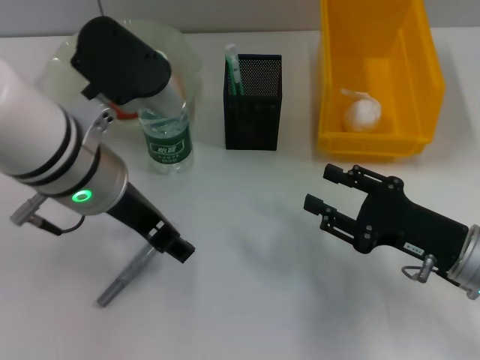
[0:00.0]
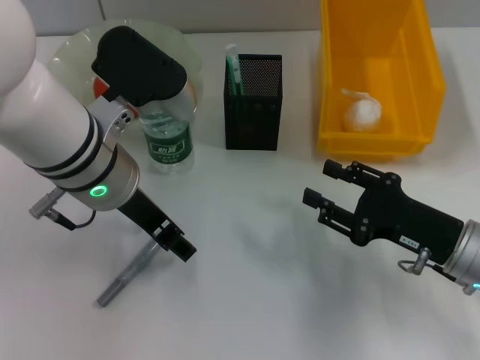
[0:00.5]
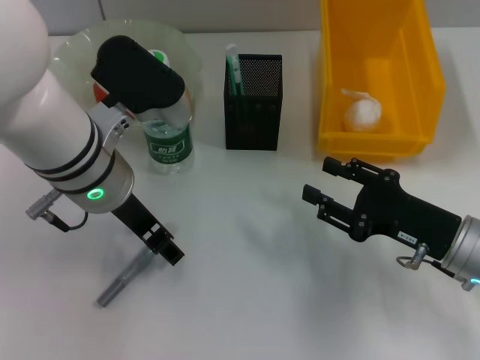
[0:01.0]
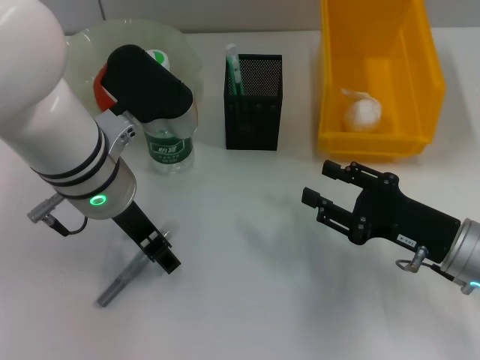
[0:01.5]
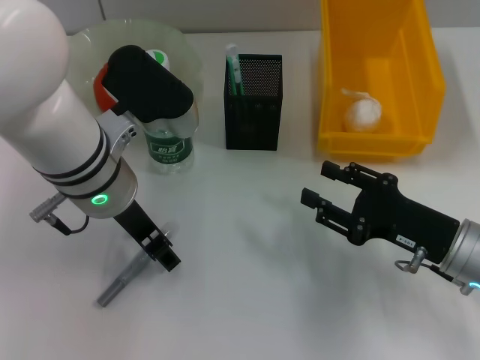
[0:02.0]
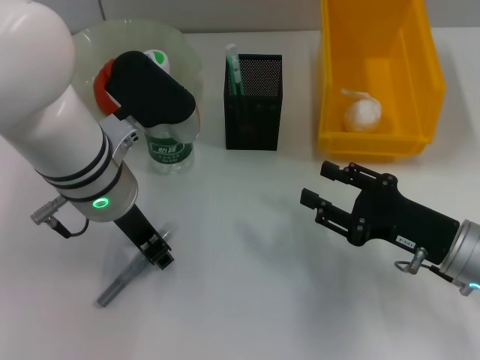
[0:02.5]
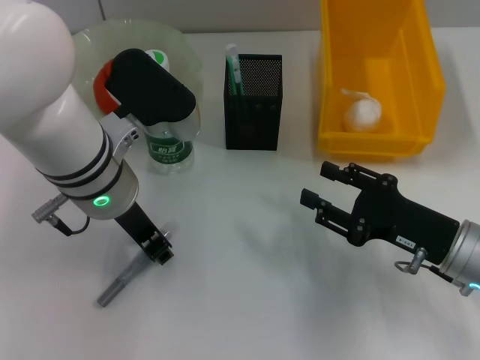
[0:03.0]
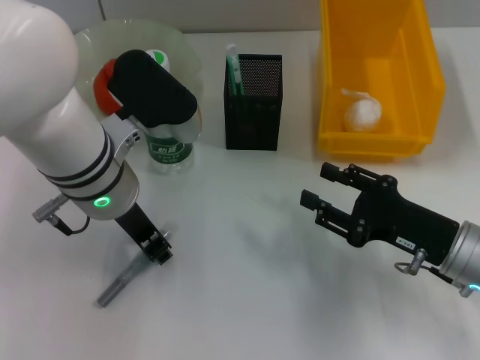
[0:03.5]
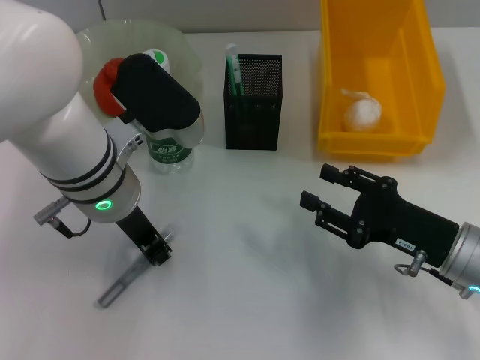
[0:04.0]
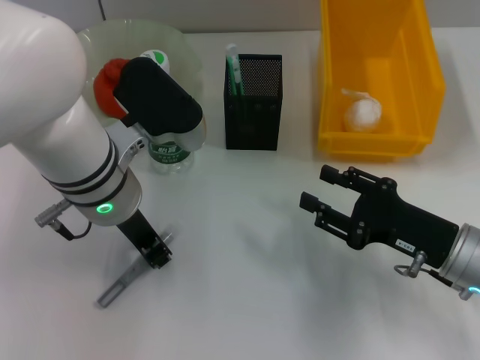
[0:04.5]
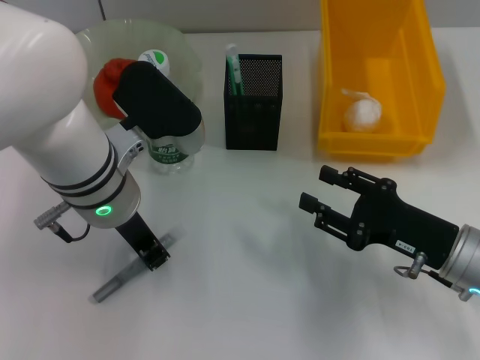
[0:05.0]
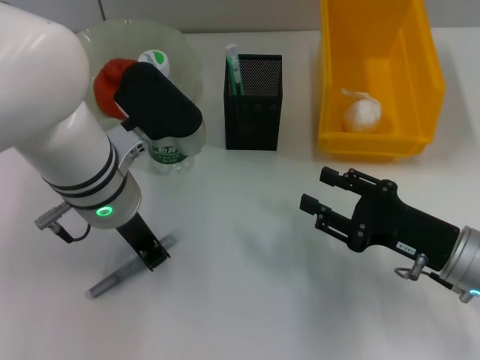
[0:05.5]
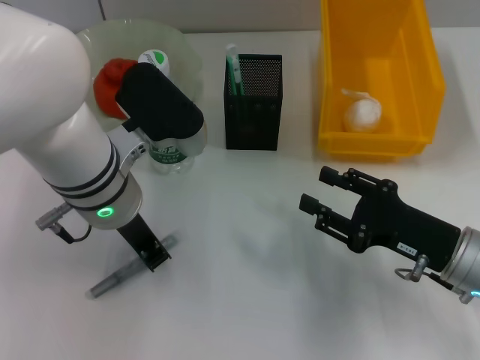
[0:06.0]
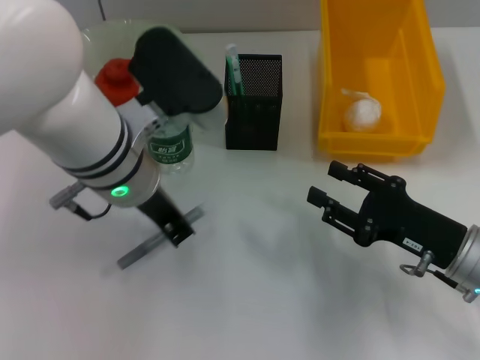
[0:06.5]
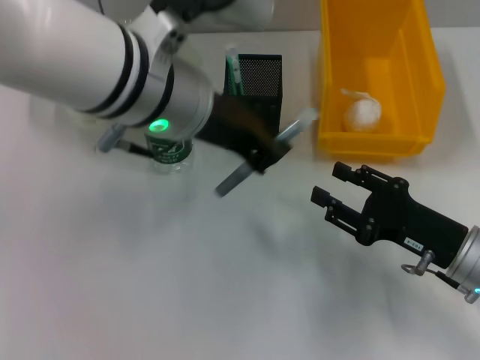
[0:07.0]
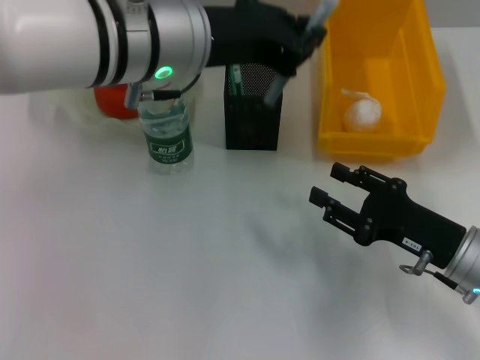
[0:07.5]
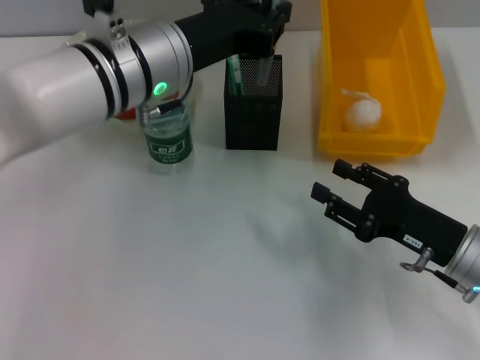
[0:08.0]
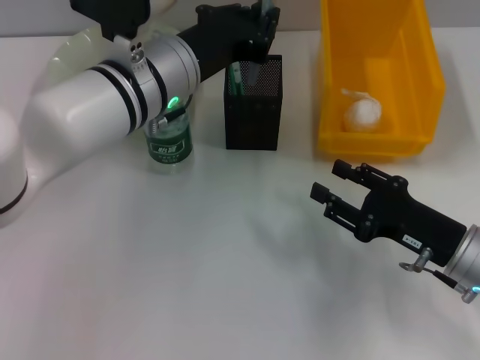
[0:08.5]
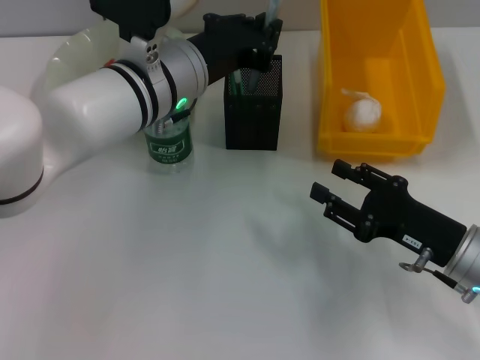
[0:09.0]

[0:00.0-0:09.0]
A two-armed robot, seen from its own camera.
Step, 0:00.0 to 0:05.5: Grab the gray glue with the left hand.
0:00.0 to 0:02.0: The grippers move only a little.
0:02.0 to 0:04.5: The left gripper closes.
0:04.5 to 0:07.0: The left gripper goes roughly 10 cm upward.
0:07.0 to 0:09.0: The left gripper travels downward and forward by approximately 10 cm.

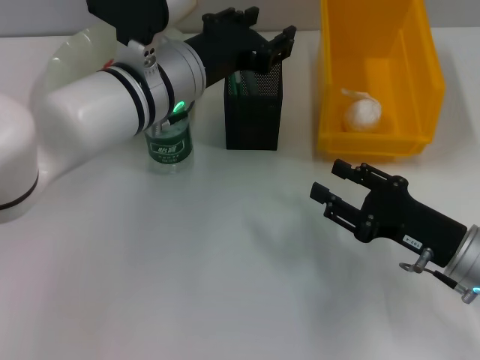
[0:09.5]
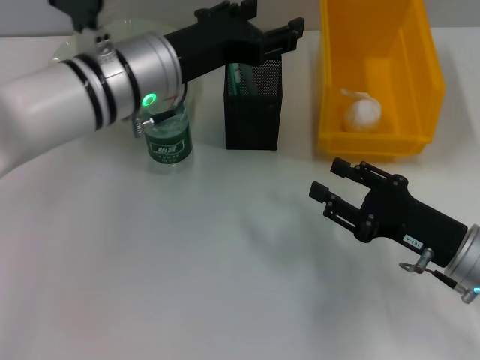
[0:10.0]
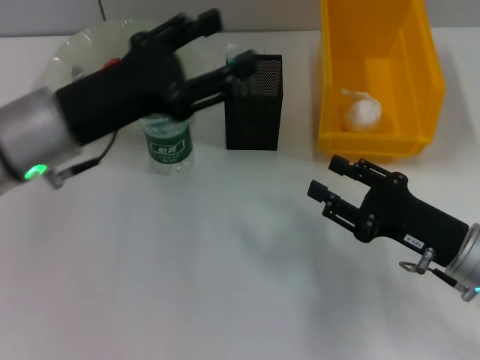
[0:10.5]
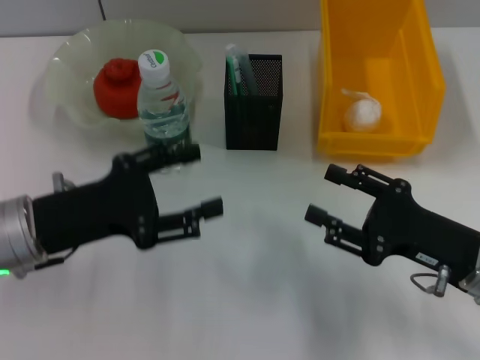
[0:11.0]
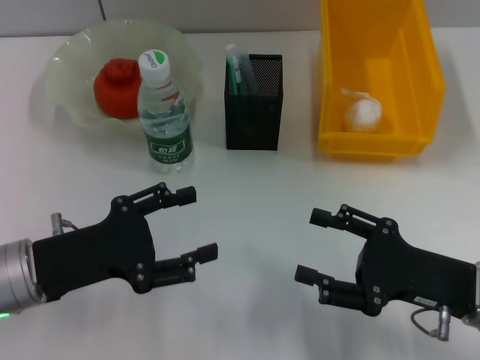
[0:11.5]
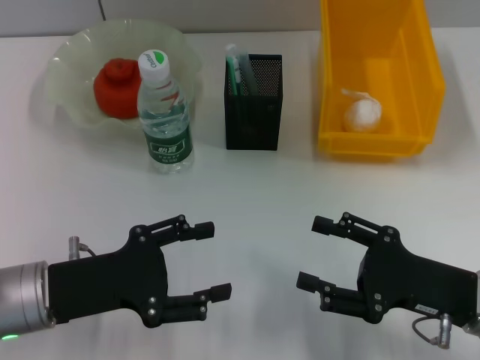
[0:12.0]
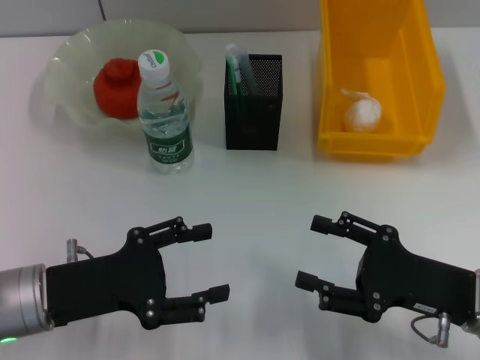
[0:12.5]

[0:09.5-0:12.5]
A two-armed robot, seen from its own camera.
0:09.5 to 0:11.0: The left gripper is displaced to the left, backward and downward by roughly 20 cm, and opens.

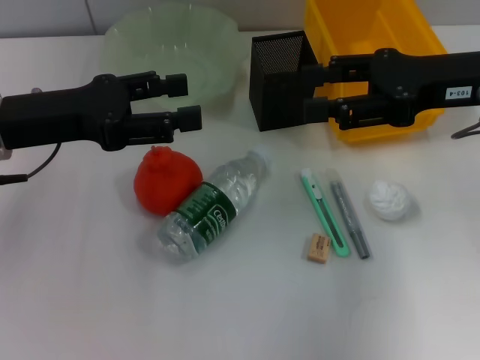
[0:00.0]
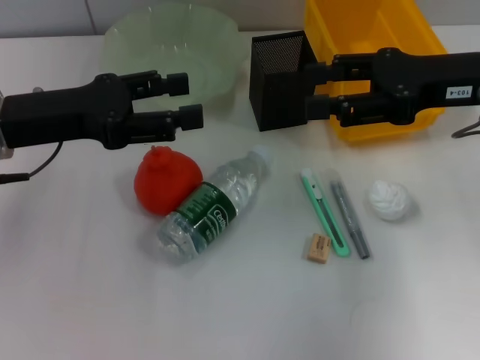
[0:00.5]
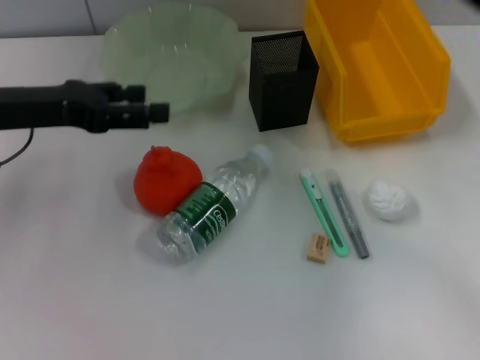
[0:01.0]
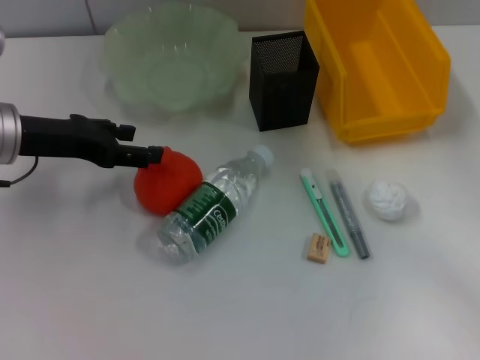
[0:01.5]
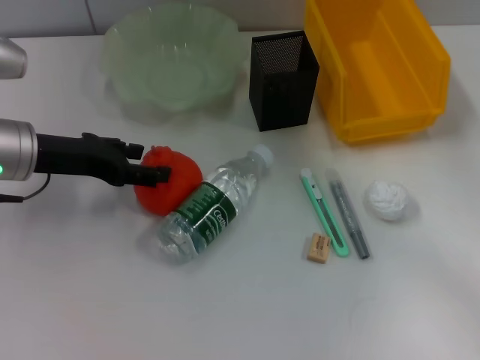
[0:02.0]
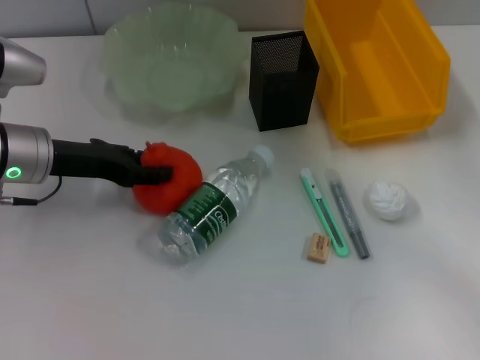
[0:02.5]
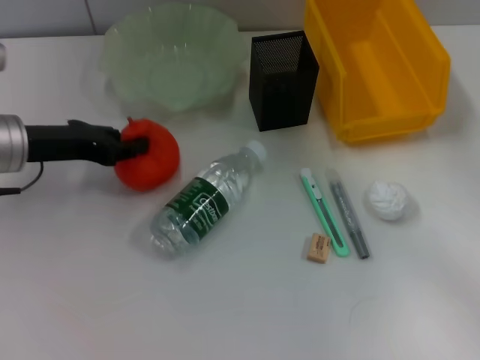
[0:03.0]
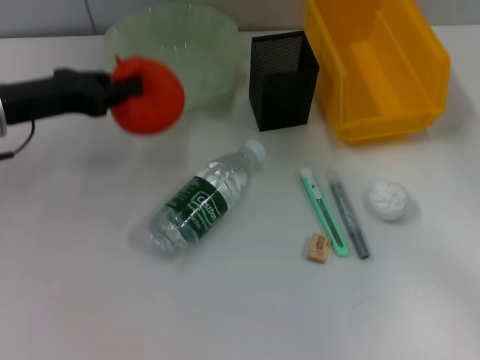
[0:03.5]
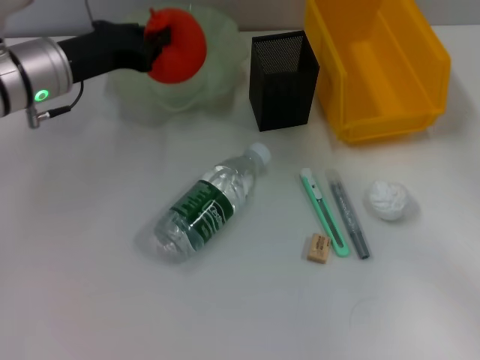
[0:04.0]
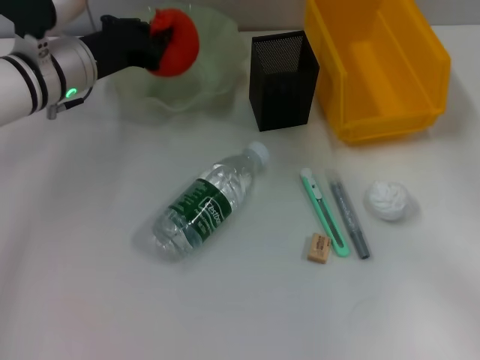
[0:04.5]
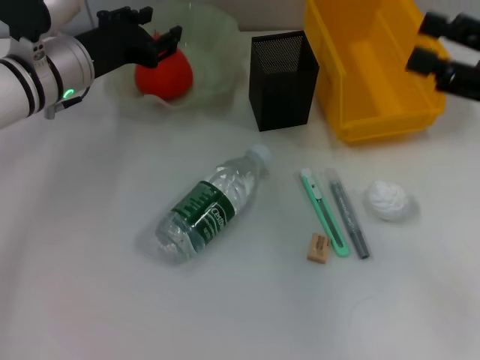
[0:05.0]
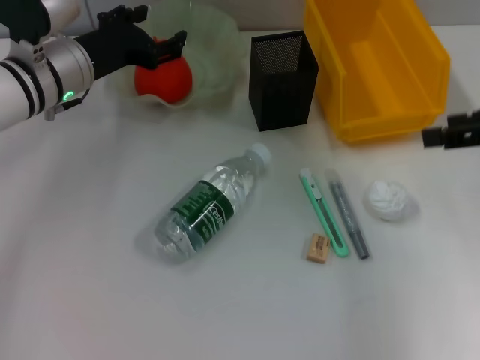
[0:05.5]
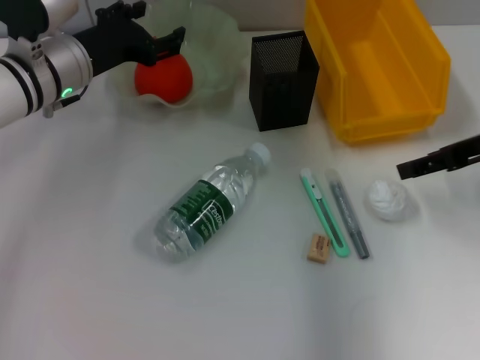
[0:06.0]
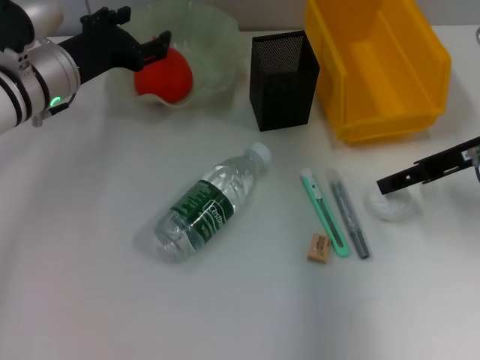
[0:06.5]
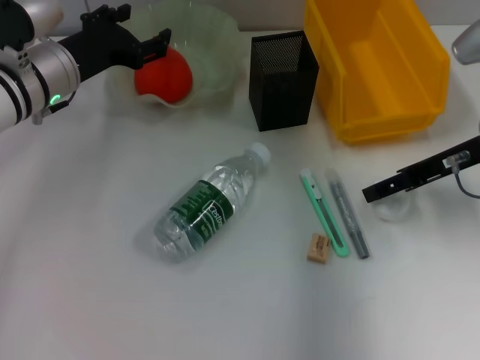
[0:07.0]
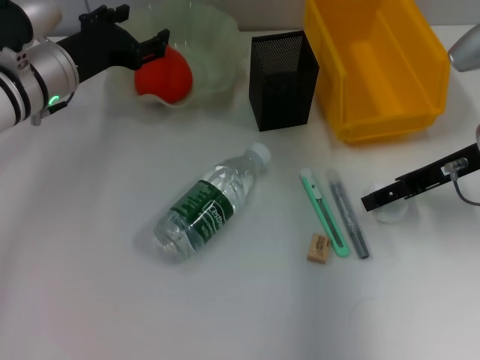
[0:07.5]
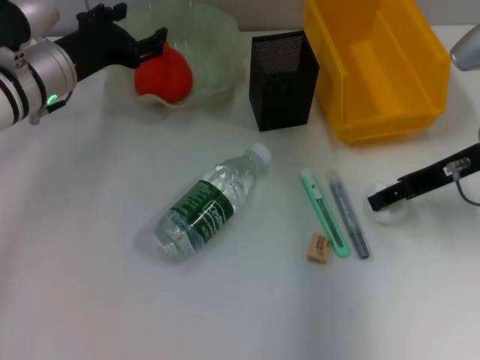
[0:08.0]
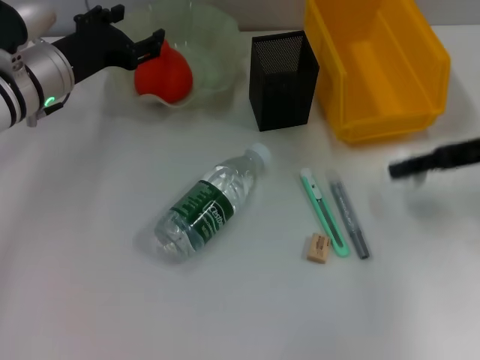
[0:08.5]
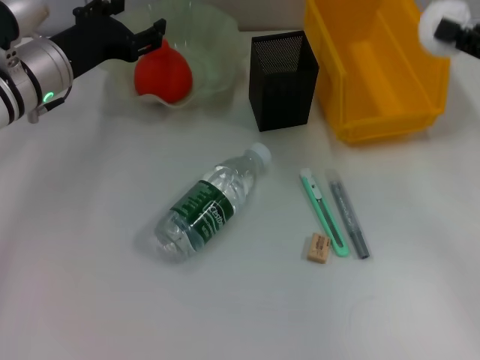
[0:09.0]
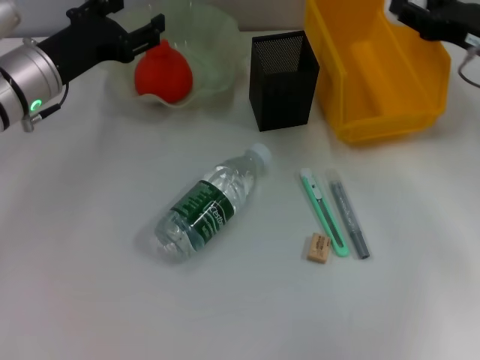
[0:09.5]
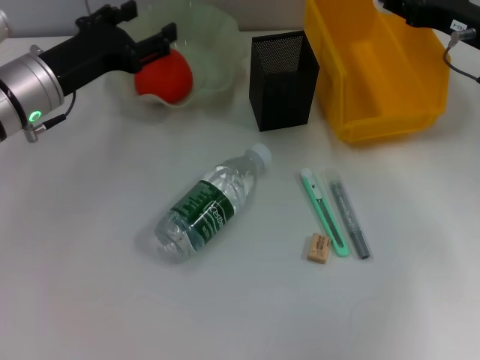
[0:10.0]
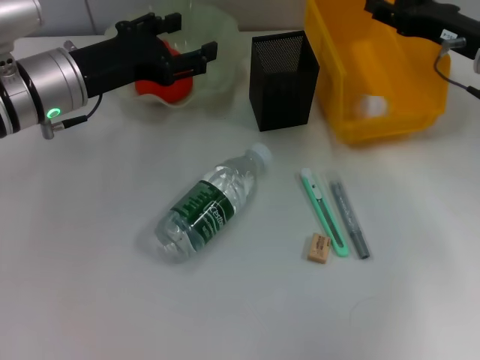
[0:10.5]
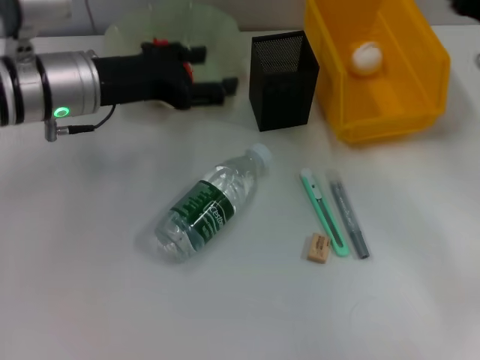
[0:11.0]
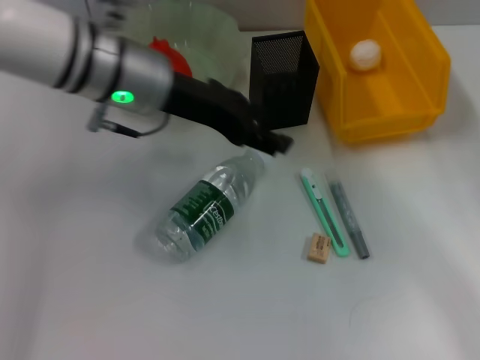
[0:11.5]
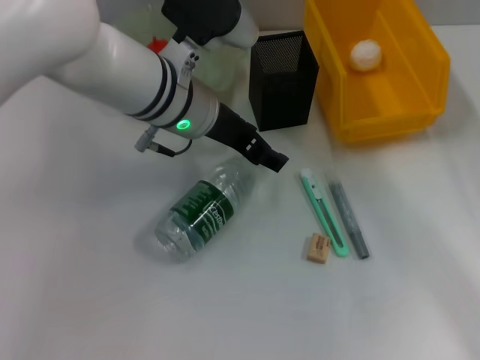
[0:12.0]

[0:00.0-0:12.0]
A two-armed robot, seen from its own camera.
Step, 0:00.0 to 0:02.5: Grab the orange with the left hand.
Step, 0:03.0 to 0:05.0: Place the orange into the fruit bowl with the left hand.
Step, 0:05.5 to 0:08.0: Grab the paper ball with the right hand.
Step, 0:08.5 to 0:10.0: Place the paper ball into the trash can with the right hand.
0:00.0 to 0:02.0: The right gripper heads to the right and downward, covering some 10 cm, while the left gripper shifts by roughly 5 cm.
0:02.0 to 0:04.0: The left gripper closes up.
0:04.0 to 0:06.0: The right gripper shifts by about 5 cm. Meanwhile the left gripper opens its fingers.
0:06.0 to 0:08.0: The right gripper moves about 5 cm.
0:08.0 to 0:10.0: The right gripper is displaced forward by approximately 5 cm.
0:10.0 to 0:12.0: The left gripper goes approximately 15 cm to the right, while the right gripper moves backward, approximately 15 cm.

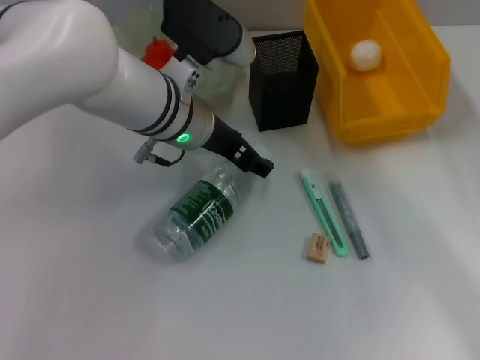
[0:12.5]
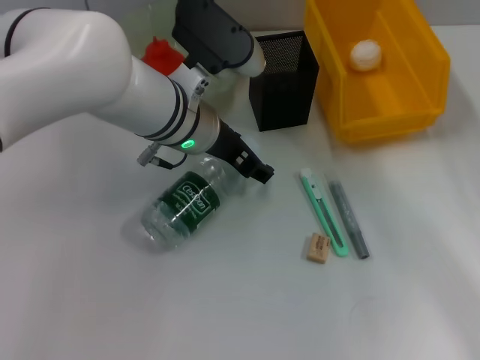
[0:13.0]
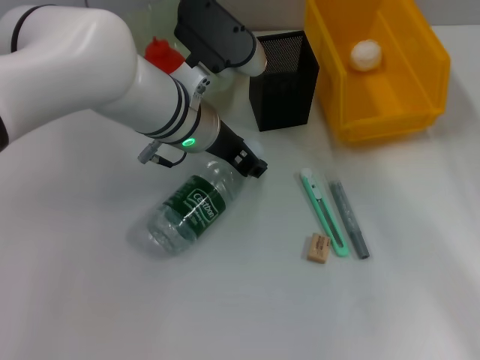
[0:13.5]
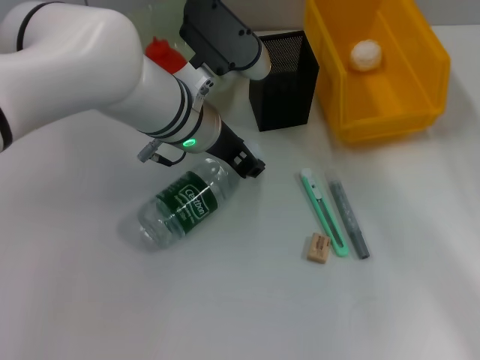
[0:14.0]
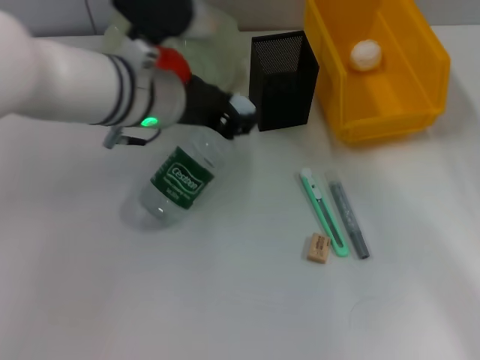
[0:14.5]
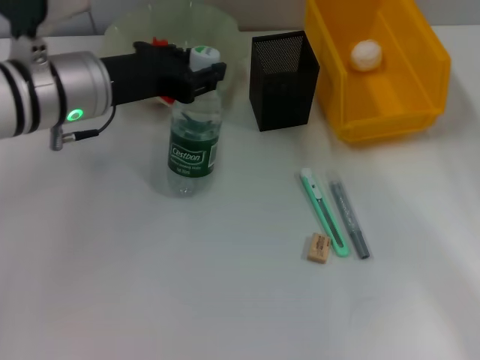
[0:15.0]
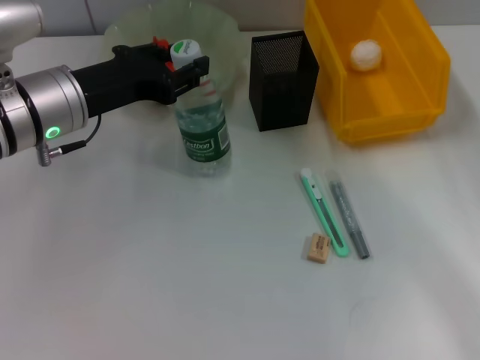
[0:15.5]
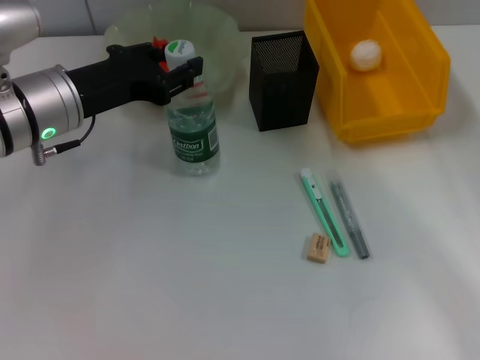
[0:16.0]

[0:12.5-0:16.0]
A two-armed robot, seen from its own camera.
0:12.5 to 0:14.5: The left gripper closes.
0:14.5 to 0:16.0: The left gripper goes roughly 10 cm to the left.
